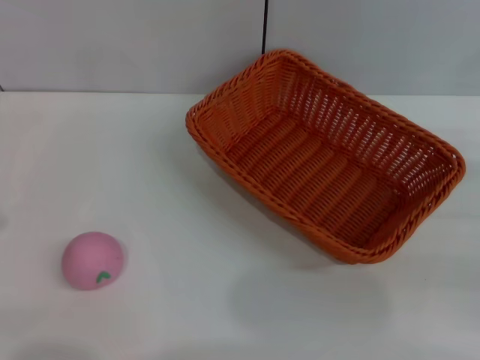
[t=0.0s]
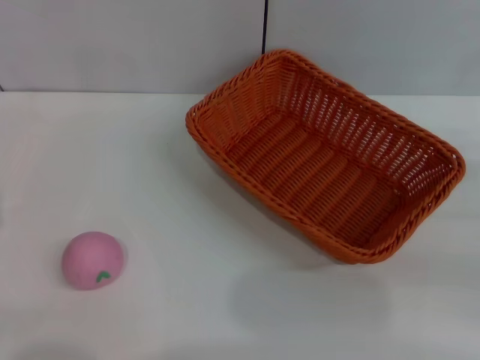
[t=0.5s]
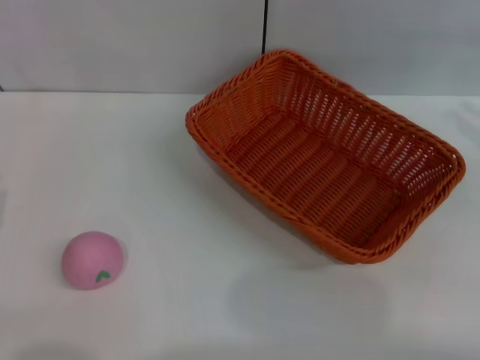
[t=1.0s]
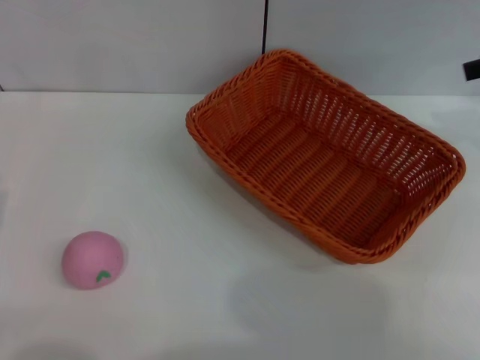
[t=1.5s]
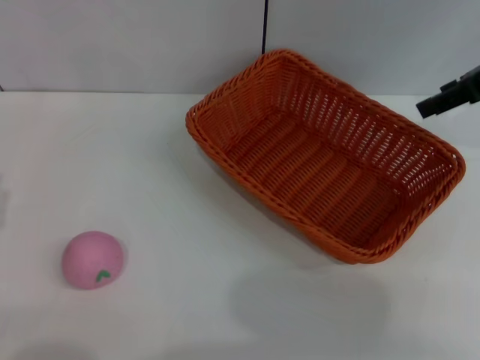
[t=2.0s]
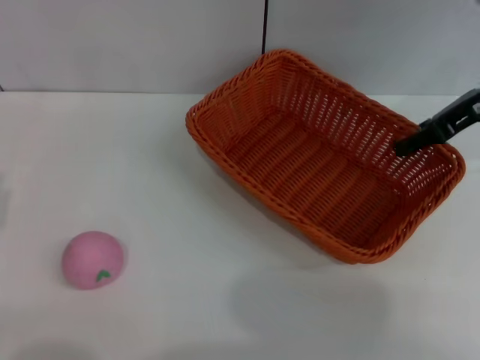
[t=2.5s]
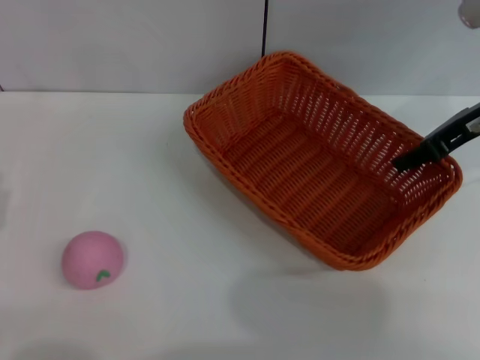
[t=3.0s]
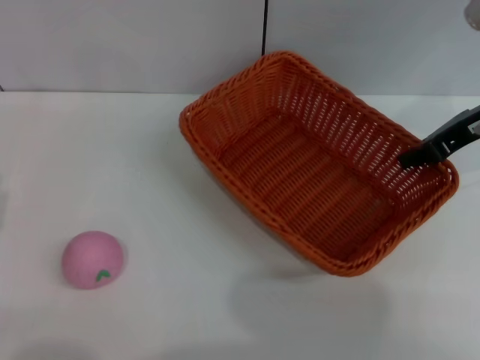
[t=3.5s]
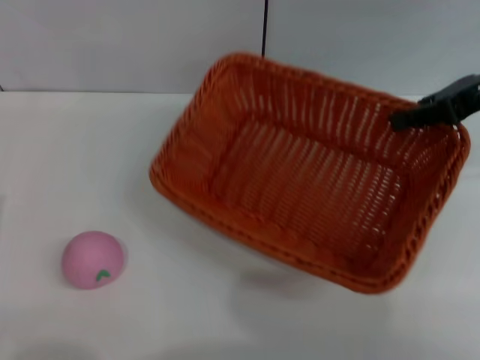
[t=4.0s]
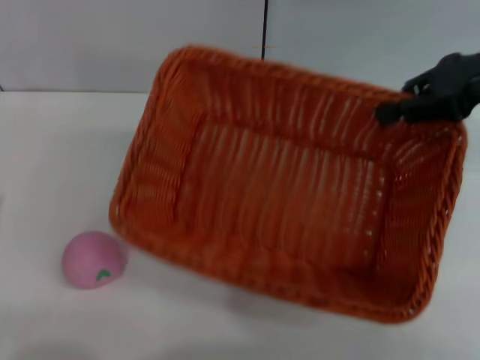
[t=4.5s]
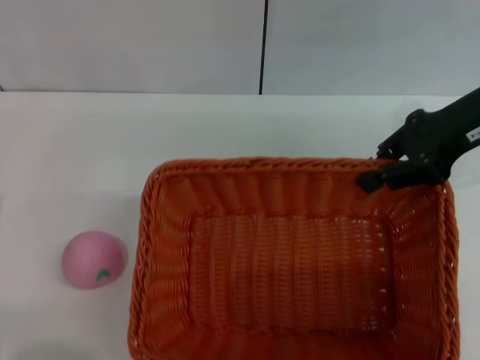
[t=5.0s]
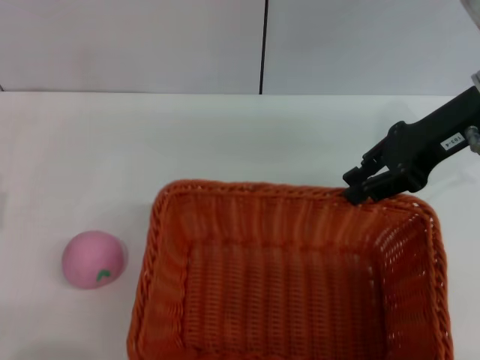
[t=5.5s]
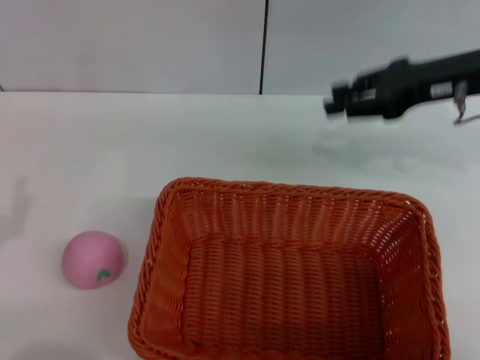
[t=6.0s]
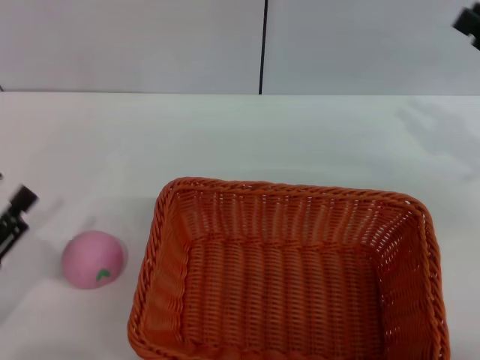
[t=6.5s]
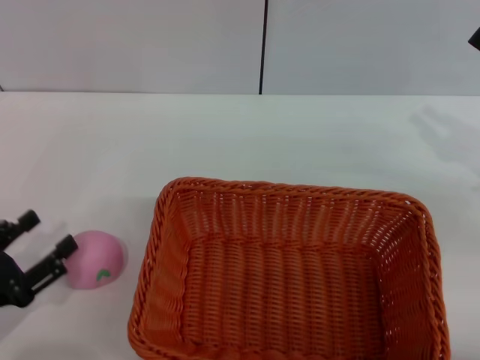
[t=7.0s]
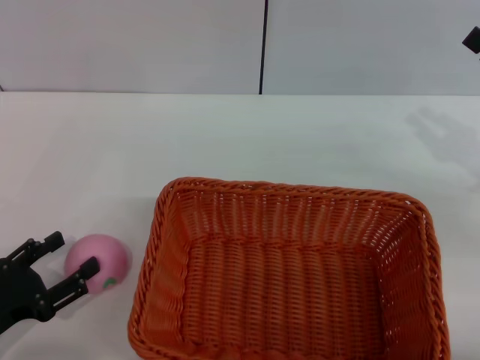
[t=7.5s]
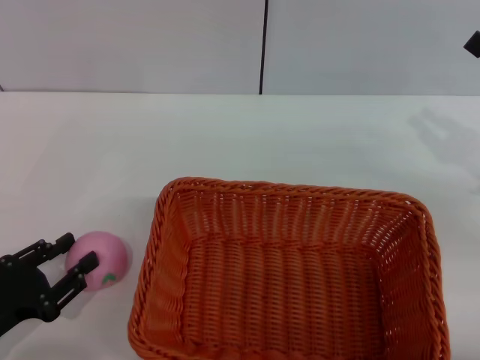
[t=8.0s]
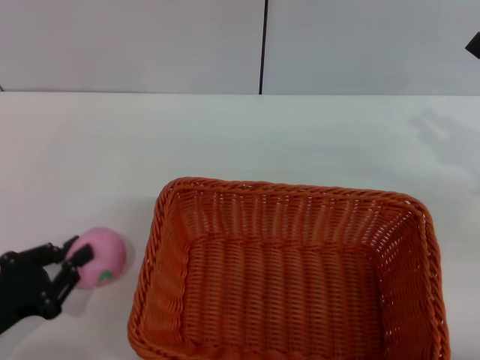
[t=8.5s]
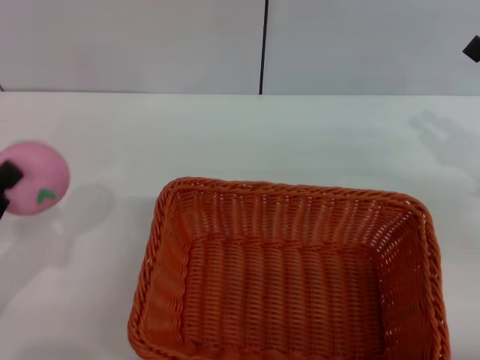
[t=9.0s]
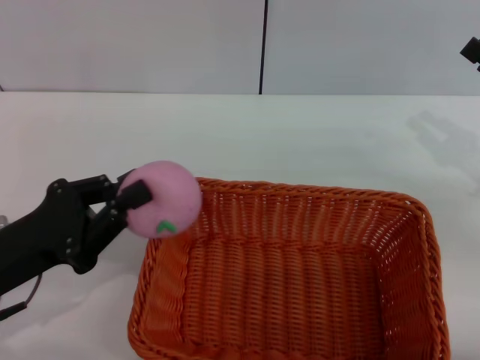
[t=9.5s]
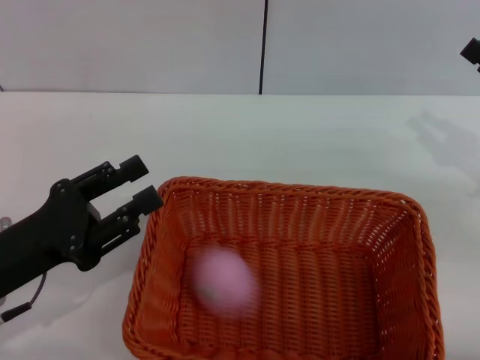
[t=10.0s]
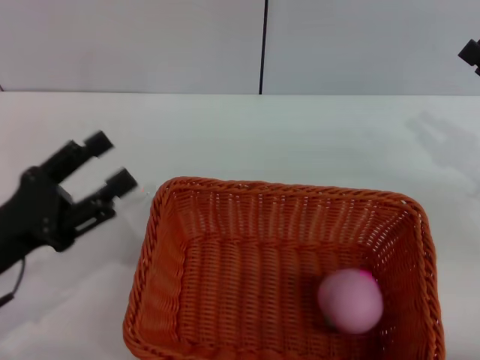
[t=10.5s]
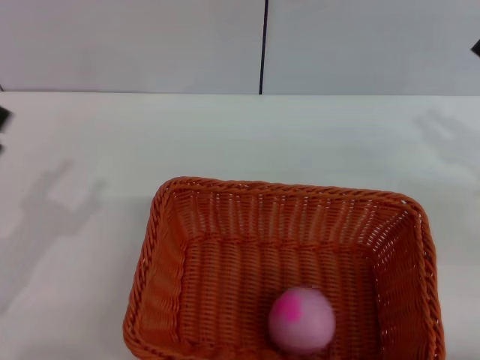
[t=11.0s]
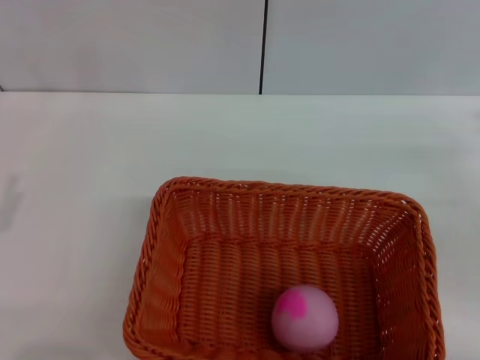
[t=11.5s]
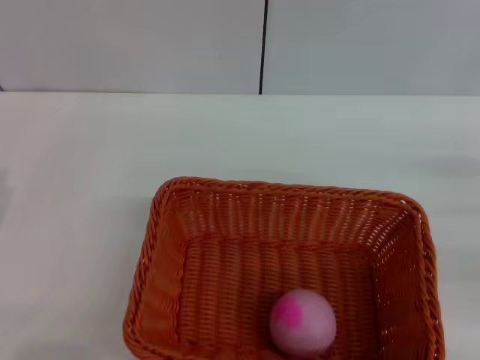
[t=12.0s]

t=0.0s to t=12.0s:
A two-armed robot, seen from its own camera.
Step, t=0.0s to t=3.5s: Pick up the light basket with the right gripper.
Step, t=4.0s to t=5.5s: Place the light basket in the center of view with the right gripper.
Step, t=6.0s to t=8.5s: Pick up the peach with the left gripper.
Step, t=9.0s to t=10.5s: Place the peach into the basket with the left gripper.
t=0.0s to t=2.0s: The right gripper travels upward, forward and to the left by roughly 25 cm.
t=2.0s to t=4.0s: The right gripper closes.
t=4.0s to t=6.0s: The right gripper opens.
t=6.0s to t=8.0s: The right gripper moves backward, to the right and downward, approximately 15 cm. The left gripper shifts by about 5 cm.
t=8.0s to t=10.0s: The left gripper heads upward, forward and to the right, covering approximately 10 cm, and closes and opens again.
t=10.0s to t=12.0s: The right gripper shifts by about 5 cm. The left gripper travels to the left by roughly 5 cm, and opens.

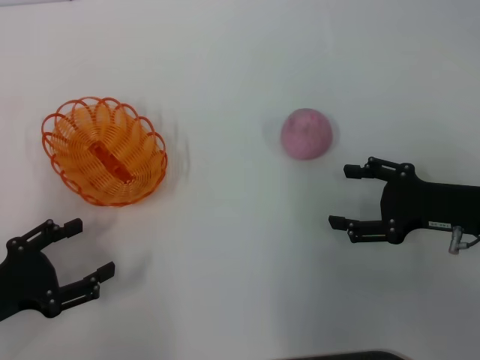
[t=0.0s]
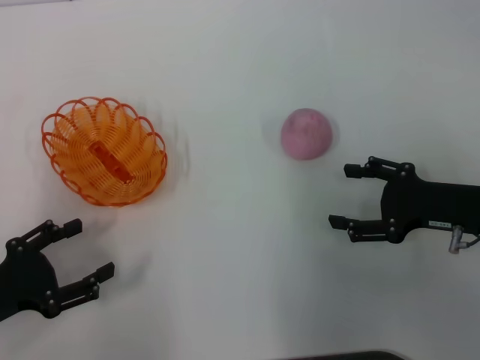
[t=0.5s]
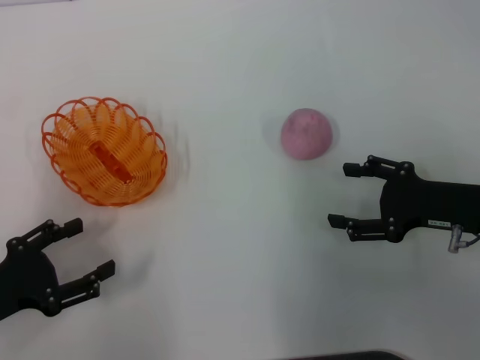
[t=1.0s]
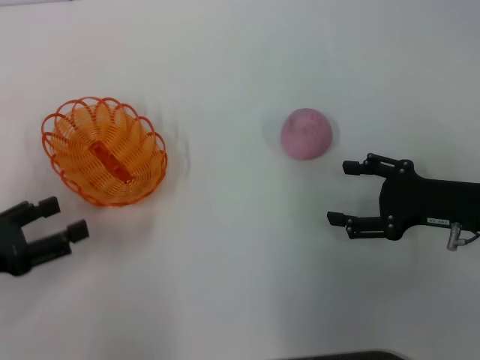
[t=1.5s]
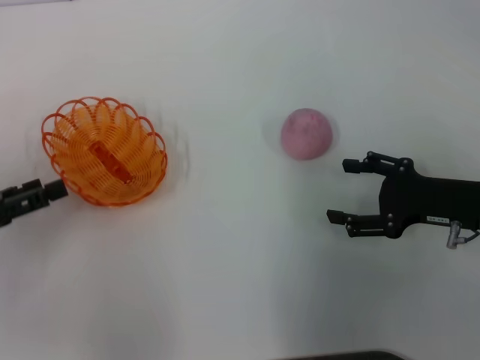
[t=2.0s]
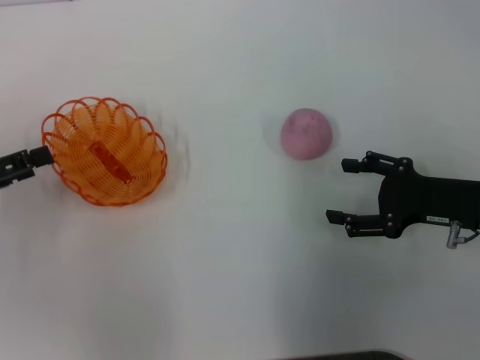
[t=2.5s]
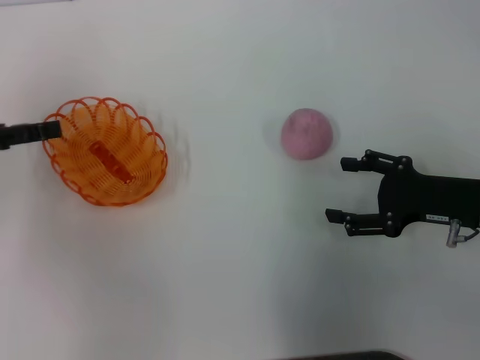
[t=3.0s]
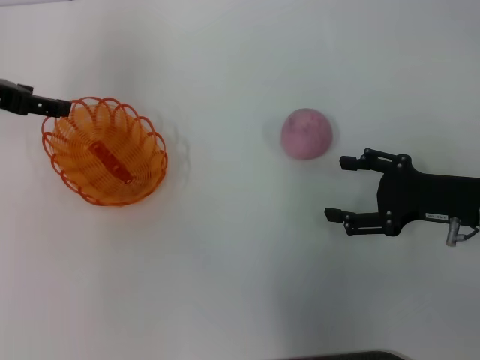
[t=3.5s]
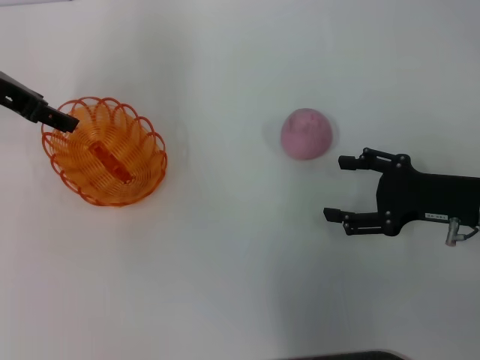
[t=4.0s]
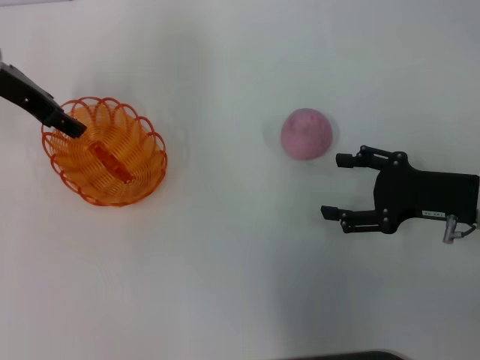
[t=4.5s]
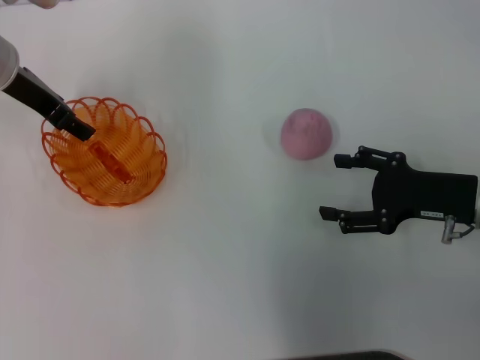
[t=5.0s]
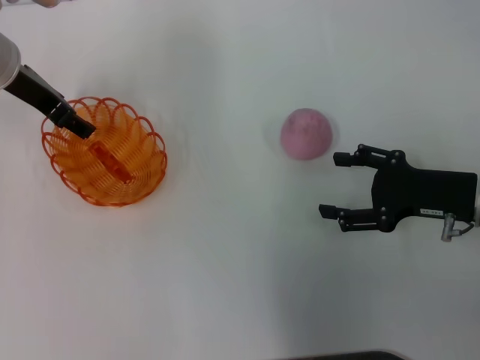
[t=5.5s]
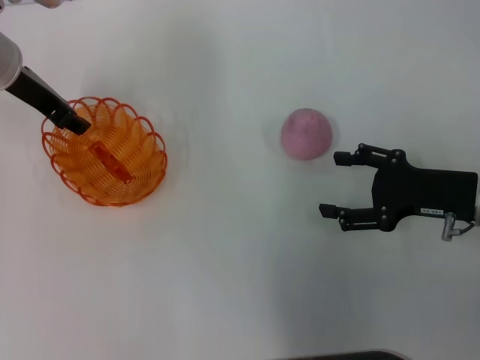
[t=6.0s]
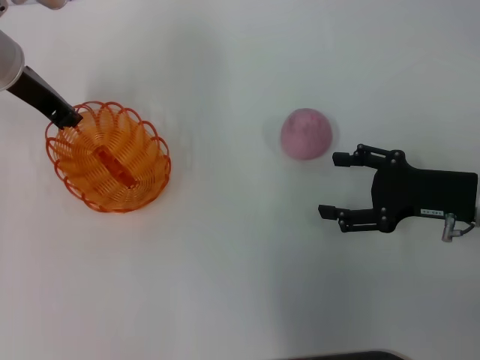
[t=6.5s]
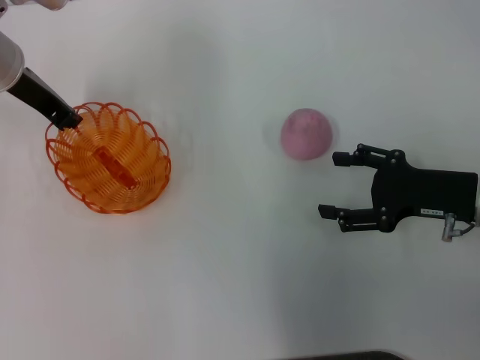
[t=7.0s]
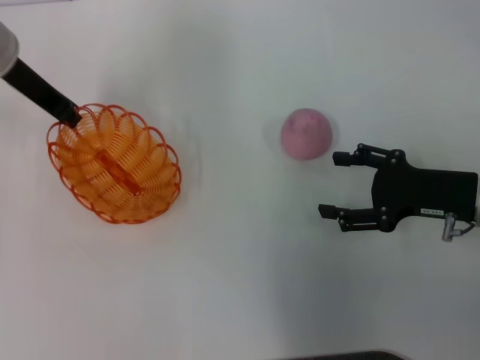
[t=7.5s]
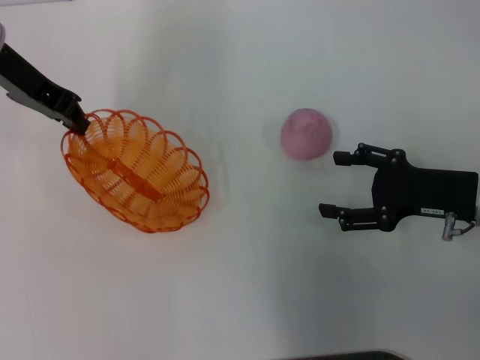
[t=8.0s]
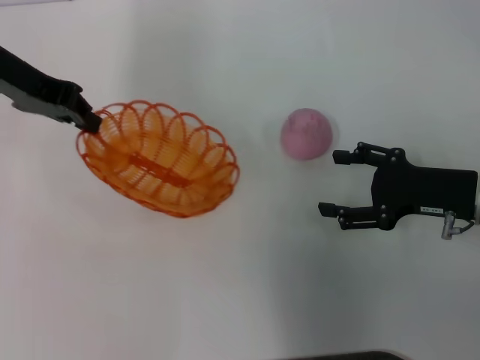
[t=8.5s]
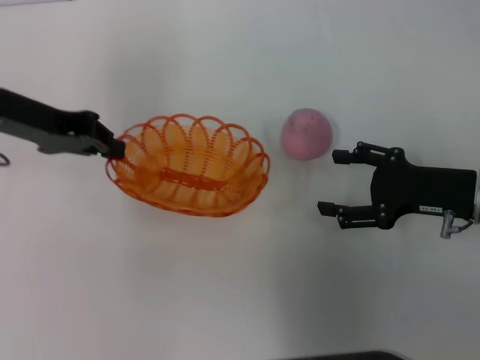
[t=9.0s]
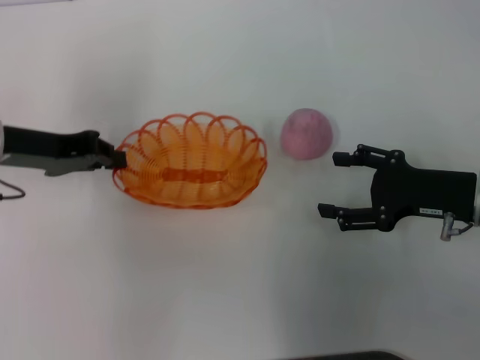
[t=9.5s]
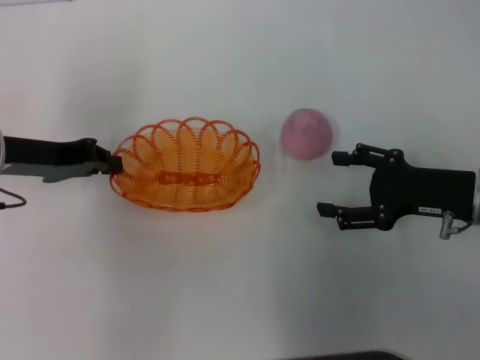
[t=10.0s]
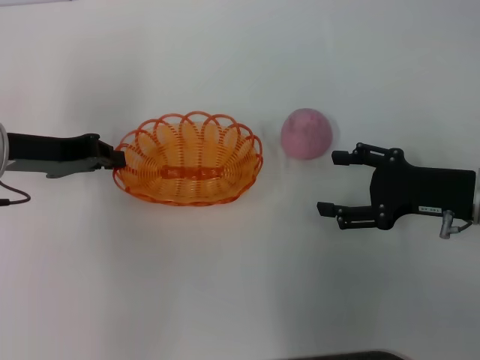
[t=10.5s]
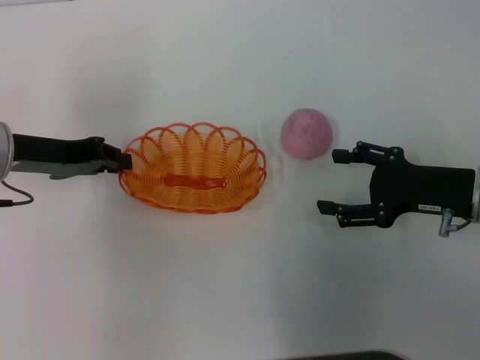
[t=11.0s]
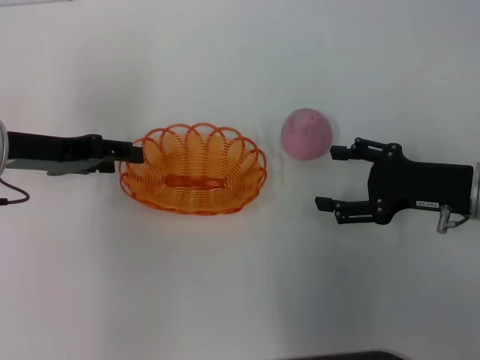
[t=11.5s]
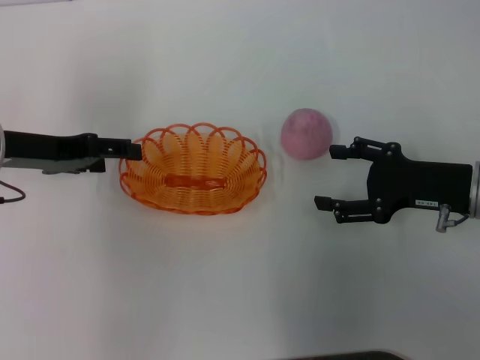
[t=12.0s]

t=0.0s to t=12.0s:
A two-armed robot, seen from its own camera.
Step, t=0.0s to t=7.5s: Pick up the basket with the left gripper.
Step, t=8.0s to t=11.5s: Place the basket in the center of view with the left gripper.
t=0.0s to t=2.0s: The left gripper shifts about 5 cm forward.
t=2.0s to t=4.0s: The left gripper shifts roughly 20 cm forward, upward and to the right.
t=4.0s to t=6.0s: The left gripper ends up roughly 5 cm from where it was.
t=6.0s to t=8.0s: The left gripper closes its fingers.
t=8.0s to t=10.0s: The left gripper goes about 10 cm downward and backward.
t=10.0s to t=12.0s: The left gripper opens its fingers.

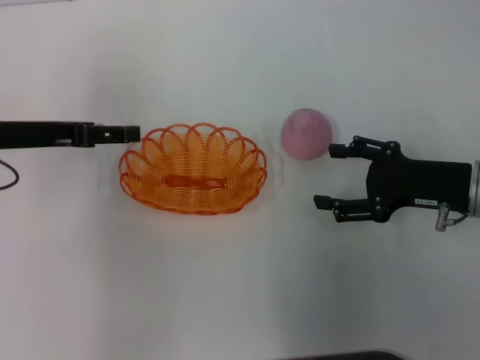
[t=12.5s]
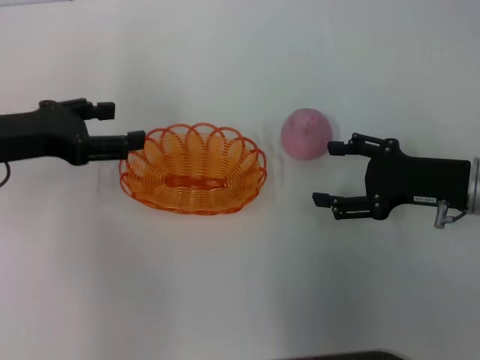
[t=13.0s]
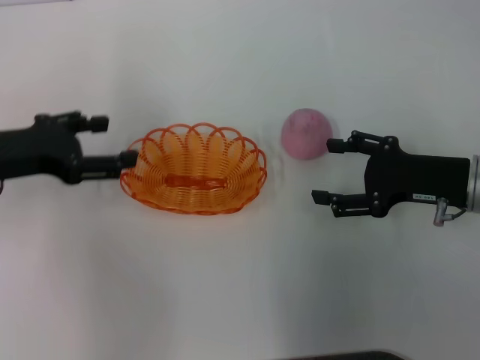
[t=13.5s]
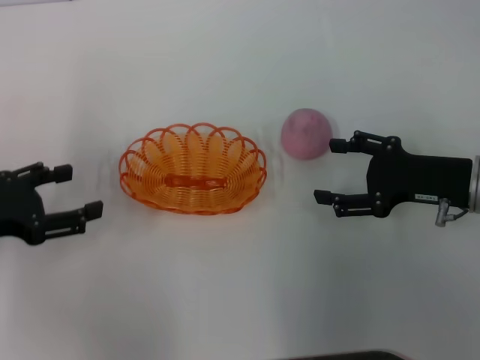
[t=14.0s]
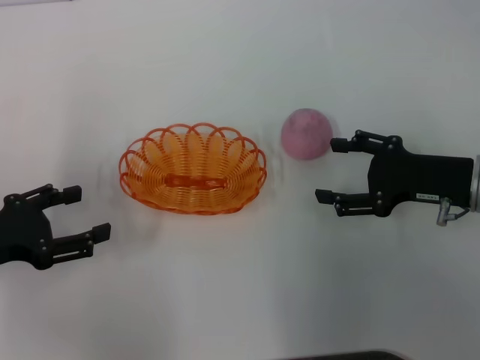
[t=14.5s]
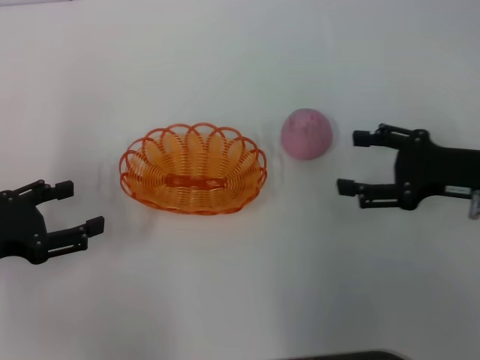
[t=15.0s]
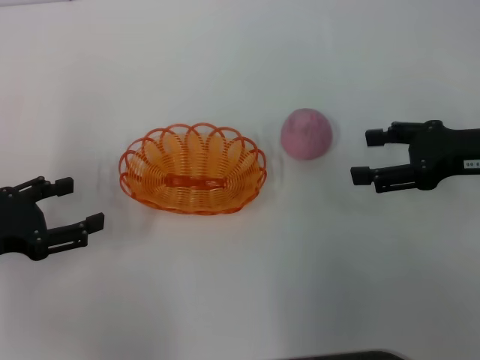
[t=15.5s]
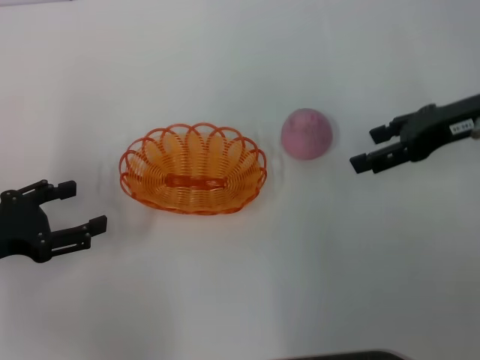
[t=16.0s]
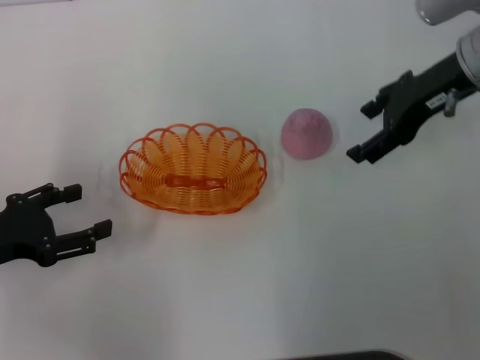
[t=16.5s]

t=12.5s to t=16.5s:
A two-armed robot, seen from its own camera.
t=12.5s to t=14.5s: The left gripper travels backward and to the left by roughly 10 cm.
t=14.5s to t=16.5s: The right gripper moves upward and forward, about 15 cm.
